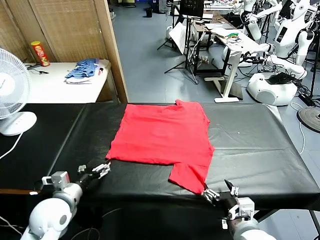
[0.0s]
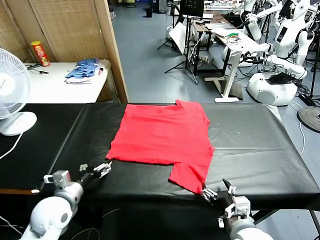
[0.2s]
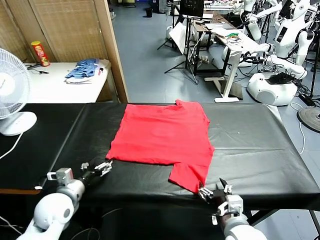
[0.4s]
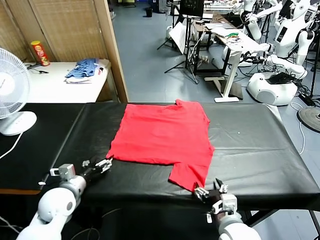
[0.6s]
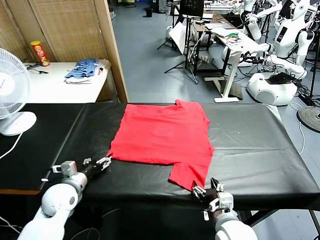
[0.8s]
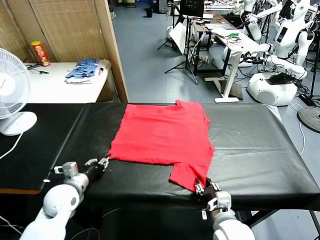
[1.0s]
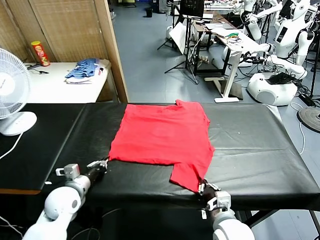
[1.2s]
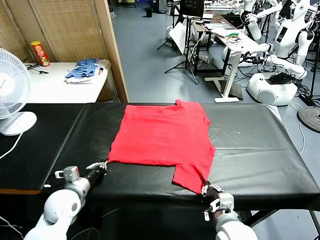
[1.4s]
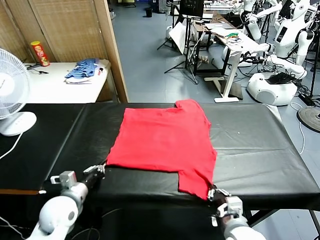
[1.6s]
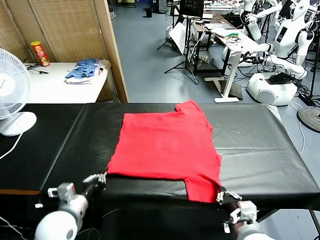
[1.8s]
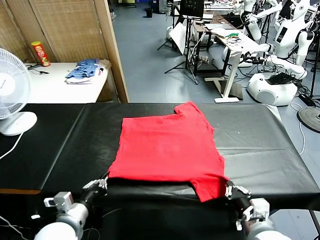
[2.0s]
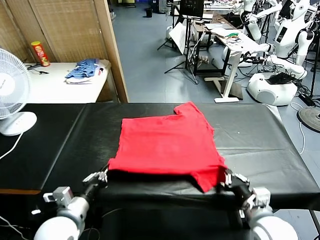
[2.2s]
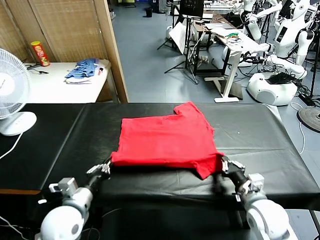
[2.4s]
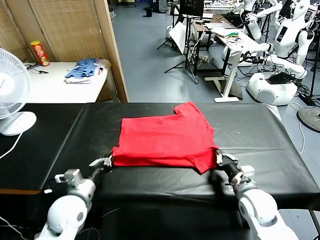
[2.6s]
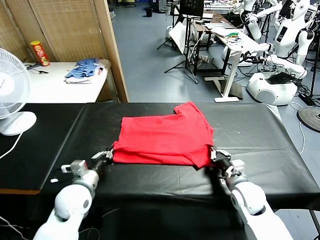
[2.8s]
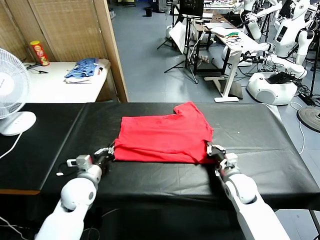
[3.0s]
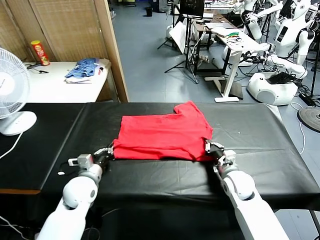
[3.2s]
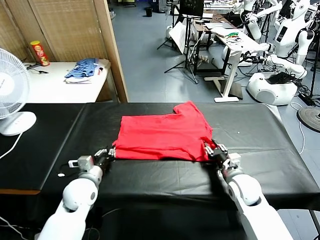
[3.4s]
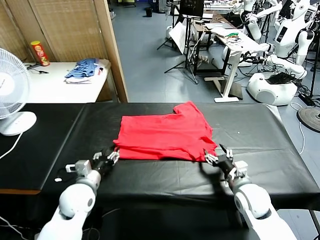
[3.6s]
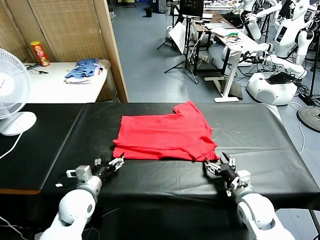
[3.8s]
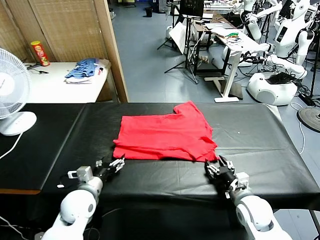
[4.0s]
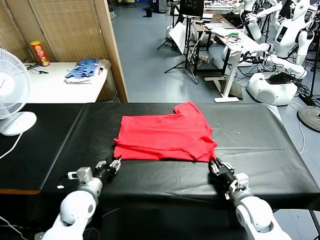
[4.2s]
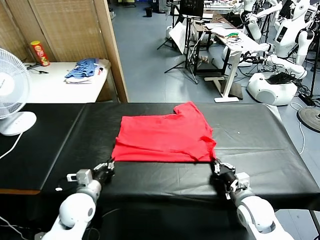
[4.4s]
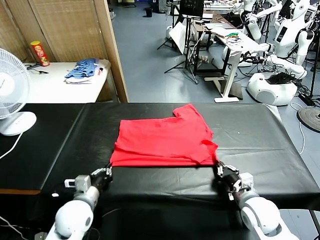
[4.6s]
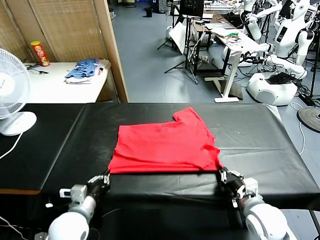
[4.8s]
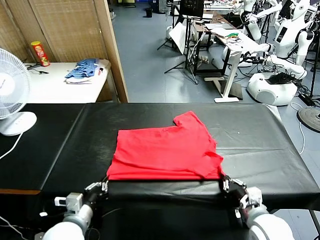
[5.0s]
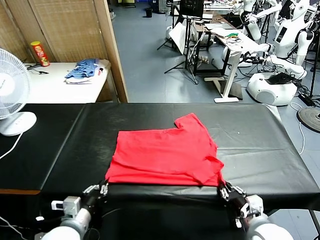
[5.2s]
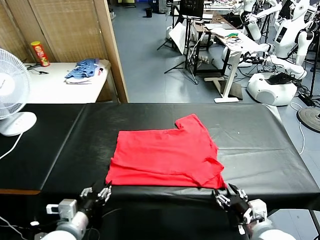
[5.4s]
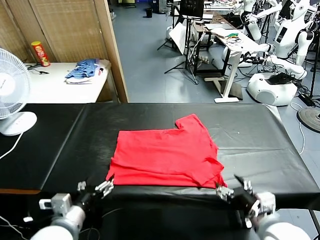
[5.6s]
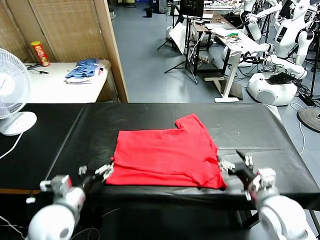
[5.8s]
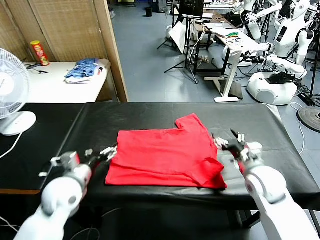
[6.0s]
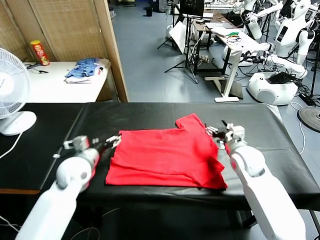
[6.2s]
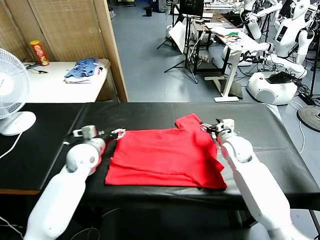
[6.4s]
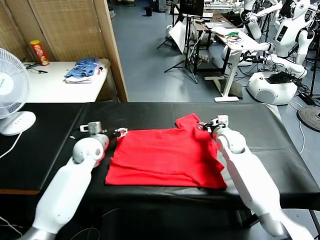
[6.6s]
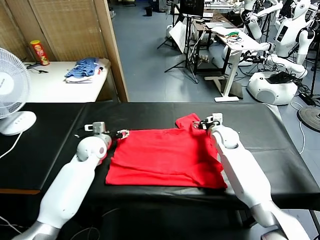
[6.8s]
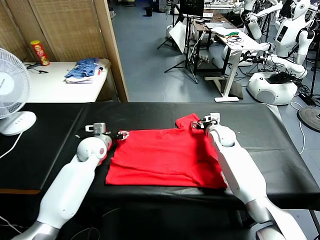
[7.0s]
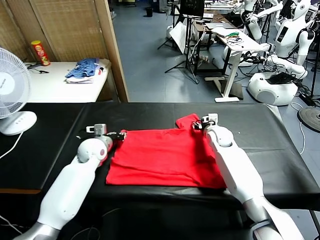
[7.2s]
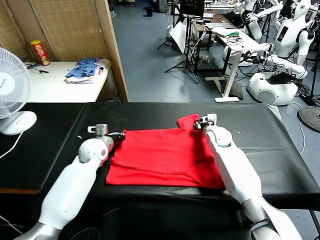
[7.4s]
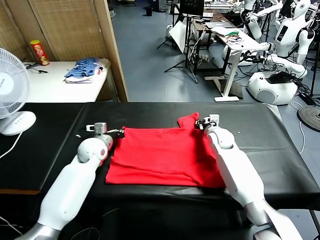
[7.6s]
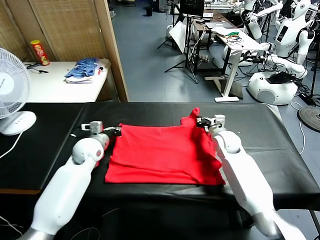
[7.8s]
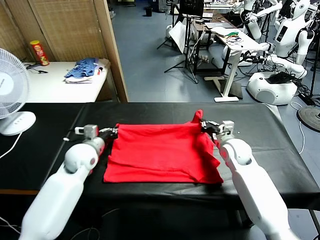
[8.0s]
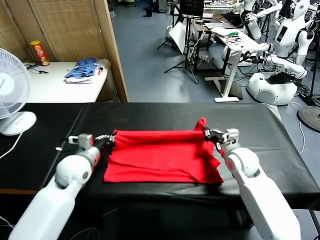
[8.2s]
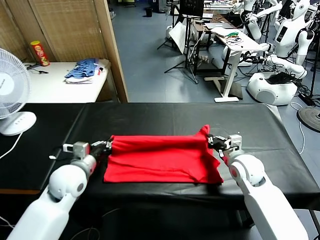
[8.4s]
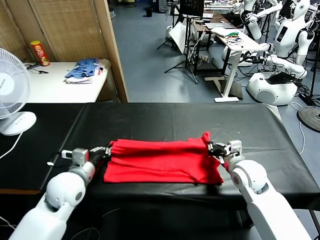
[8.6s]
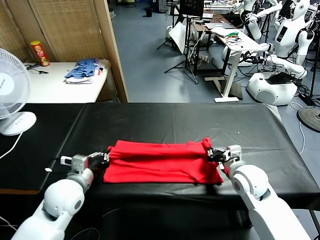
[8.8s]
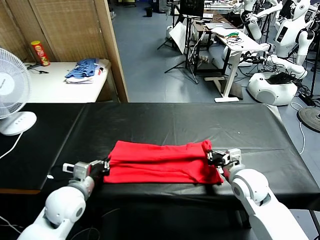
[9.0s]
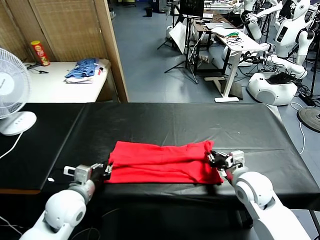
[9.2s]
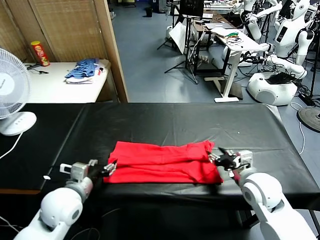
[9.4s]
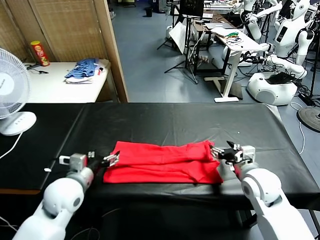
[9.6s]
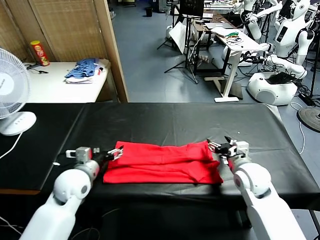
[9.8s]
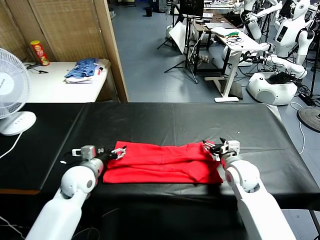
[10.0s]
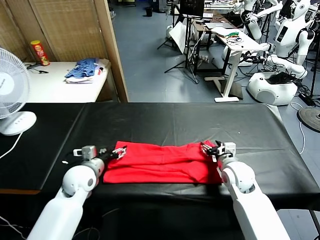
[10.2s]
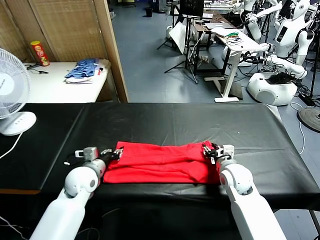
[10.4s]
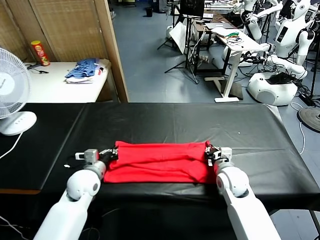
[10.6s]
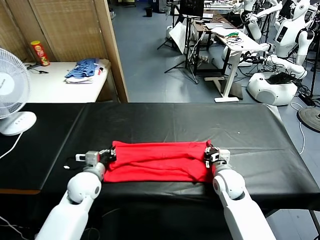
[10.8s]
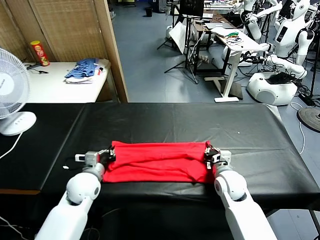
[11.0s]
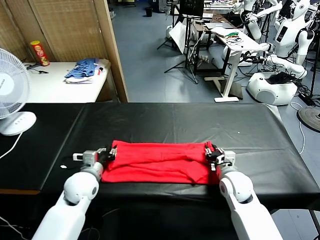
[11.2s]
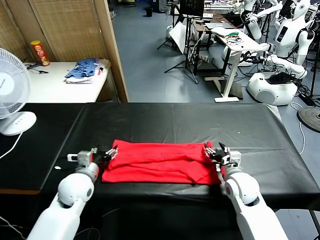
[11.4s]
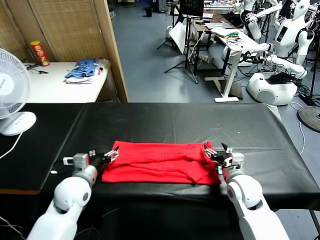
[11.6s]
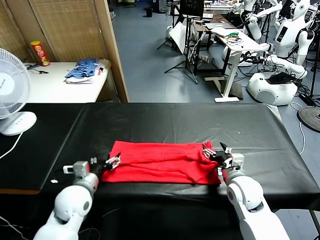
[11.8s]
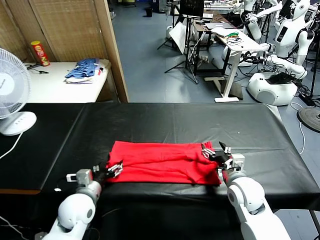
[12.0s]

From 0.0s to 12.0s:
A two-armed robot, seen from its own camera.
Task of the whole recording: fold and organize the clothes.
Step, from 0.0s to 1.4s: use both grippers simultaneously to clamp the lower edge of the clothing fabric.
Step, from 1.6s to 3.4s: use both grippers to drag the lower edge of the fabric forward and fold it over the upper edge.
Step, from 3.6s to 5.4s: Drag the clothes downward with both gripper.
Step, from 5.6s to 7.6s: use both grippers simultaneously to clamp the upper edge of the clothing fabric.
Step, from 7.8s to 9.4s: use both grippers to drag the upper edge of the fabric backward and fold it over the lower edge.
From 1.6s to 3.0s: The right gripper moves forward, roughly 20 cm, and opens up; the left gripper is displaced forward by some 10 cm.
From 3.0s to 4.4s: The right gripper moves backward, some 10 cm, and closes its fingers, while the left gripper moves backward, about 5 cm, and opens and closes again.
From 4.4s to 6.0s: The left gripper moves forward and upward, approximately 10 cm, and opens up, while the right gripper shifts roughly 15 cm forward, and opens its fingers.
From 6.0s to 7.6s: The grippers both shift forward by roughly 10 cm. The left gripper closes its fingers, while the right gripper closes its fingers.
From 7.6s to 9.0s: Both grippers move backward, some 20 cm.
From 9.0s to 10.4s: The left gripper shifts about 10 cm forward, and opens, then closes again; the right gripper is displaced downward and forward by roughly 10 cm, and opens, then closes again.
From 10.4s to 12.0s: Both grippers travel together backward, some 5 cm. The right gripper opens its fingers. The left gripper opens.

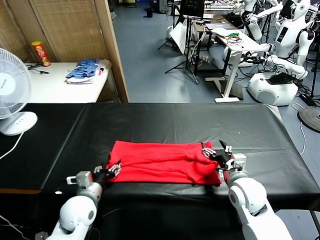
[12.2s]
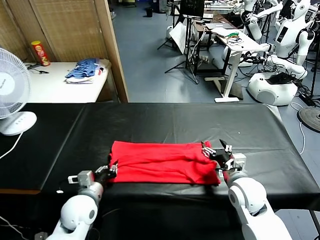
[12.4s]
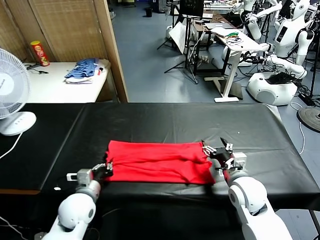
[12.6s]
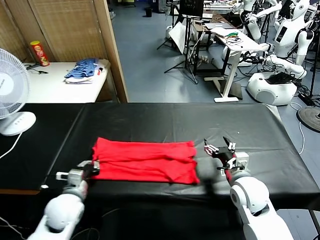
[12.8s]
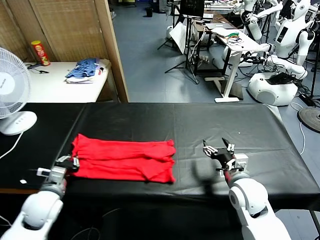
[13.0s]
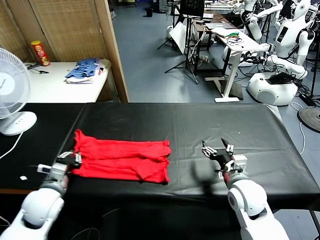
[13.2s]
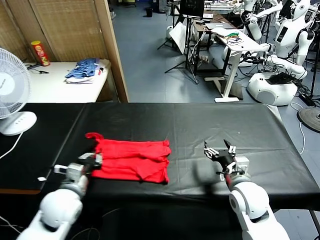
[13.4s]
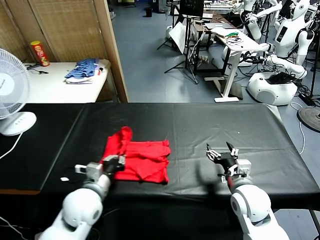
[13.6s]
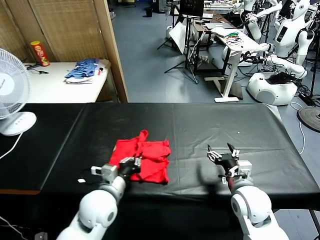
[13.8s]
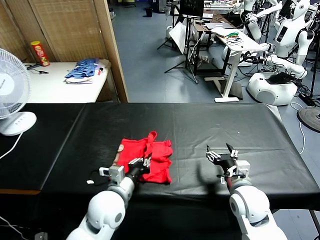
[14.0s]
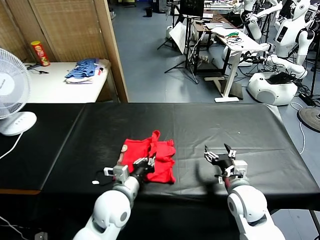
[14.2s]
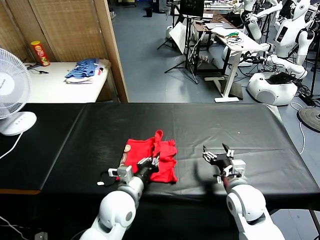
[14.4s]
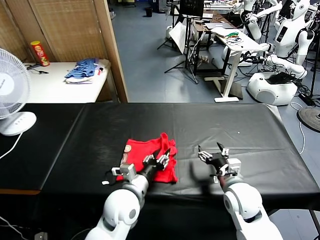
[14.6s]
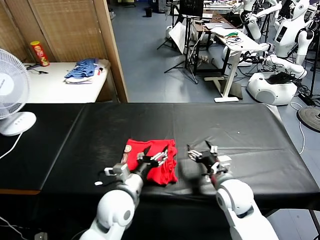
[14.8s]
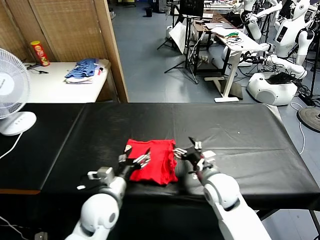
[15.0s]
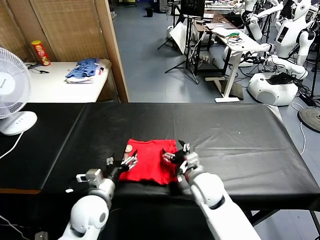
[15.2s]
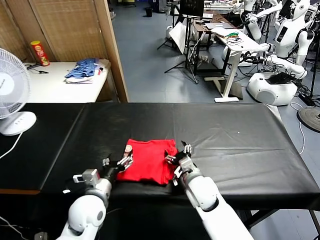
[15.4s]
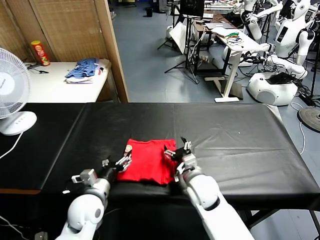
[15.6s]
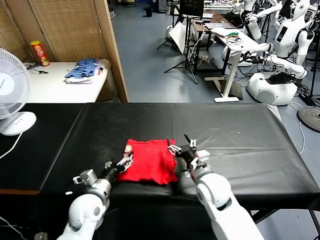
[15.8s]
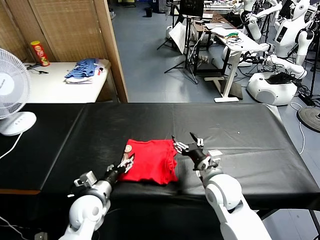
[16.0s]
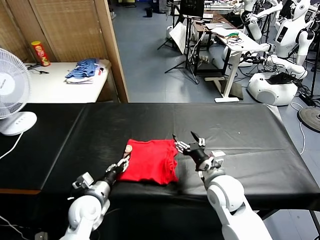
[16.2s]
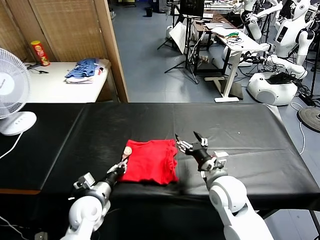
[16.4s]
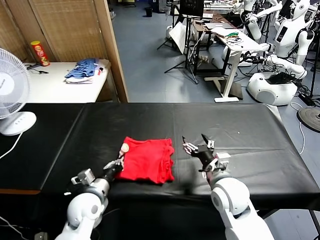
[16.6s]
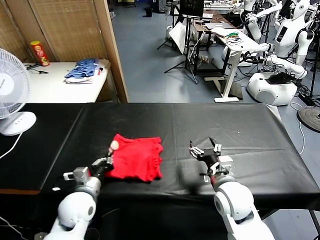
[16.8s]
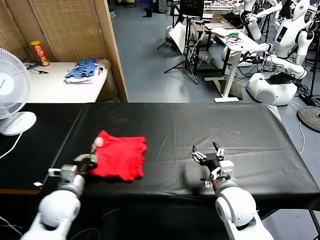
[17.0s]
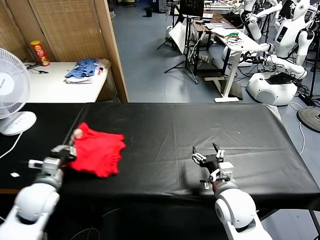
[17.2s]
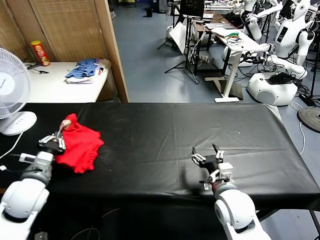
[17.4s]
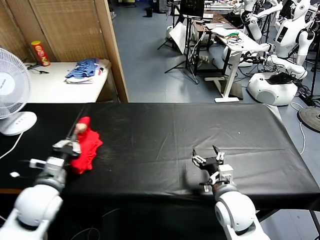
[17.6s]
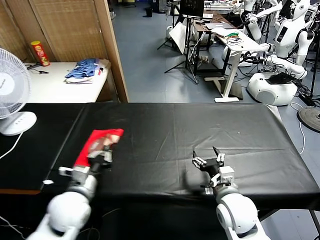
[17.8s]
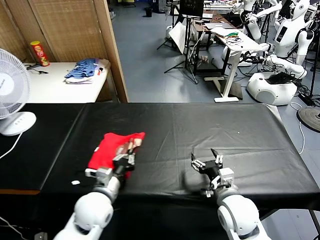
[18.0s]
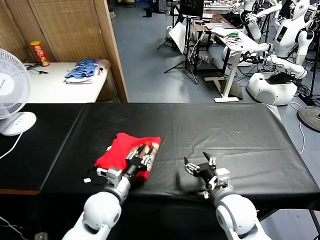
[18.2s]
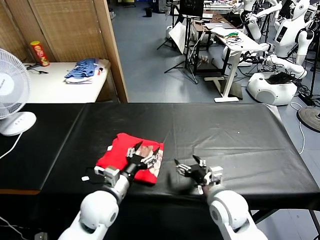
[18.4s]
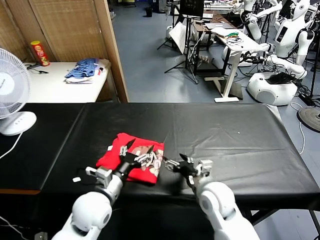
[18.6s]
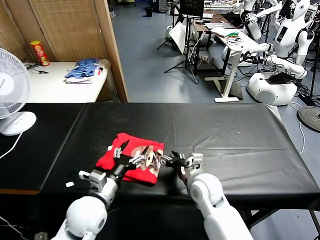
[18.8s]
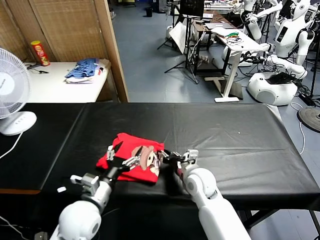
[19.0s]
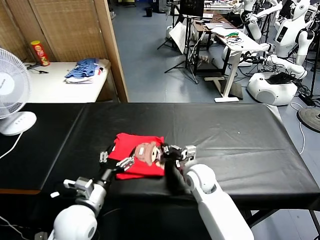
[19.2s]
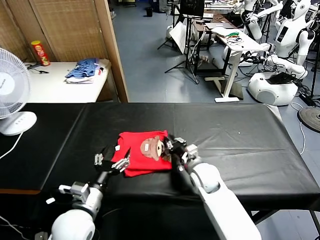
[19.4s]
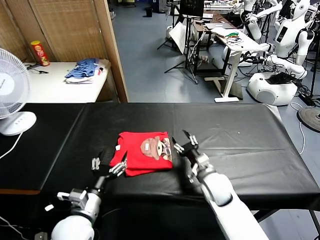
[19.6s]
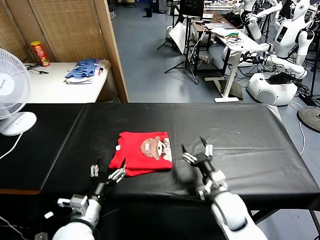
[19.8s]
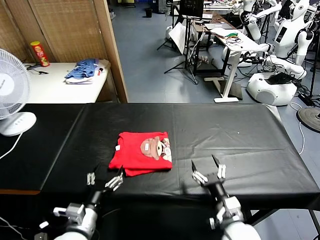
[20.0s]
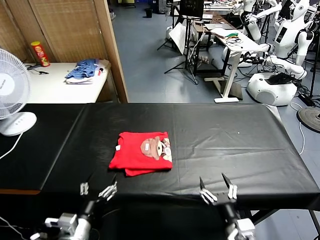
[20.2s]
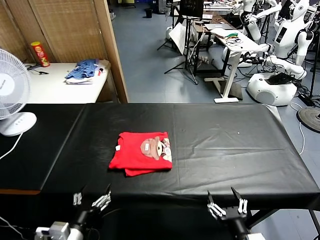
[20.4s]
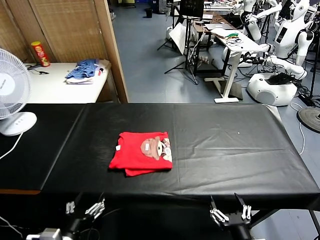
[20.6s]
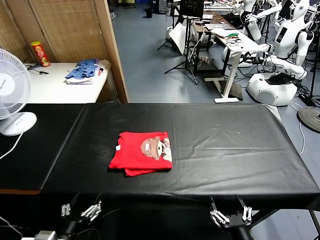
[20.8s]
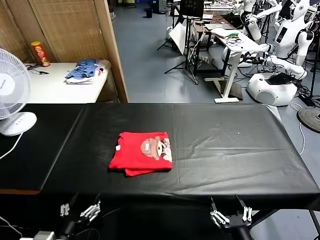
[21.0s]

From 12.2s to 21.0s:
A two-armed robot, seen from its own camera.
Task of the whole recording: fold and organize the clothes.
Step, from 12.8s to 14.6s: use the left gripper to drag the left edge of the fabric to the left and folds it over the right edge.
Step, from 15.0s to 18.2s: Flip the folded clothes over with left gripper.
Step, from 18.4s to 19.6s: Drag the clothes to the center of the table.
From 12.2s to 13.6s: The left gripper goes some 5 cm upward, moves some 10 cm to the left and comes back, and closes up.
From 13.6s to 15.2s: The left gripper reaches approximately 10 cm to the right, then returns, and opens up. Meanwhile the right gripper travels to the left and forward by about 15 cm.
From 15.2s to 16.6s: The right gripper shifts approximately 5 cm to the right. Meanwhile the left gripper shifts by some 5 cm, and closes.
From 16.6s to 18.0s: The left gripper reaches some 10 cm to the left, then returns.
From 18.0s to 19.6s: The left gripper heads backward, covering approximately 5 cm, and opens its fingers, while the right gripper heads forward and downward, covering roughly 10 cm, and closes up.
From 19.6s to 21.0s: The left gripper heads backward, covering approximately 10 cm, while the right gripper heads backward, covering approximately 30 cm, and opens up.
